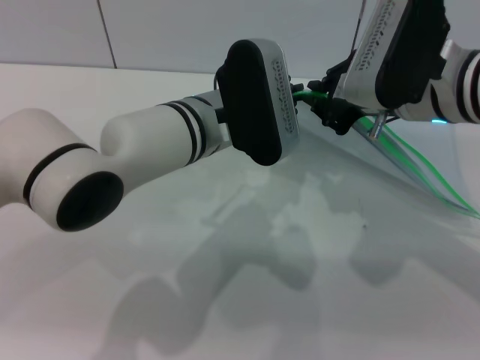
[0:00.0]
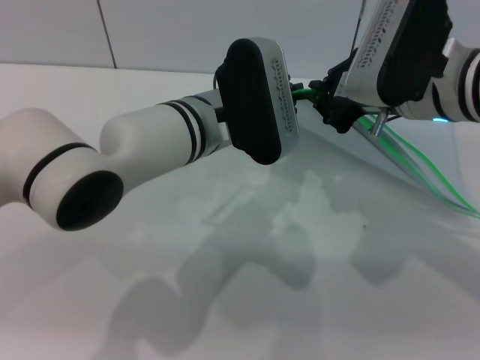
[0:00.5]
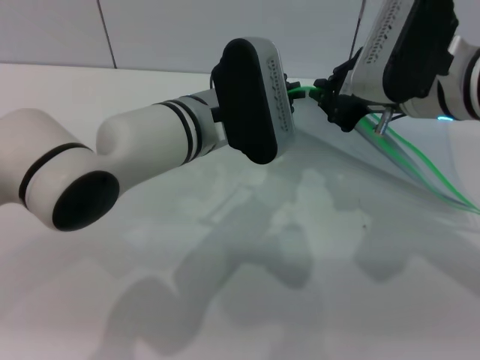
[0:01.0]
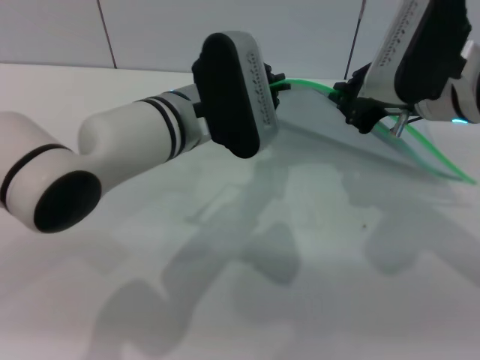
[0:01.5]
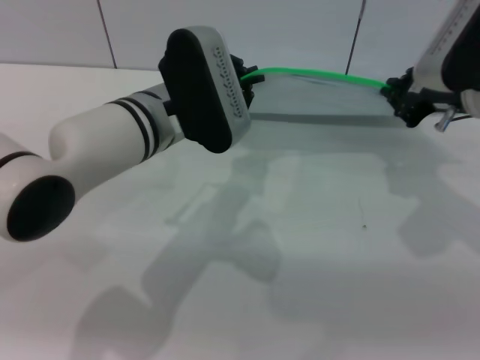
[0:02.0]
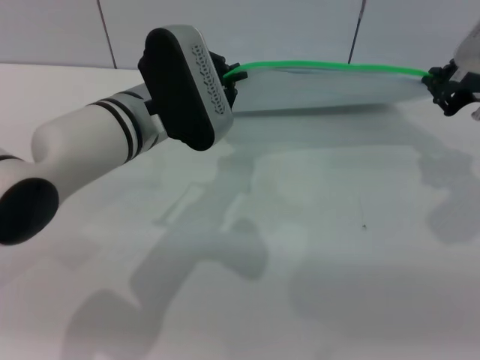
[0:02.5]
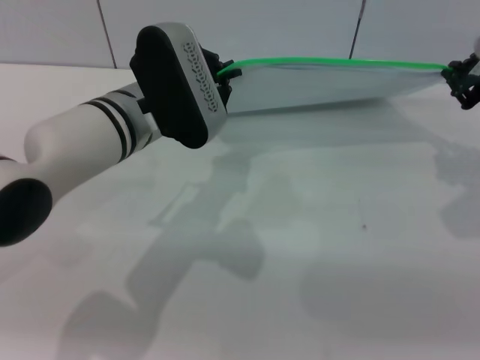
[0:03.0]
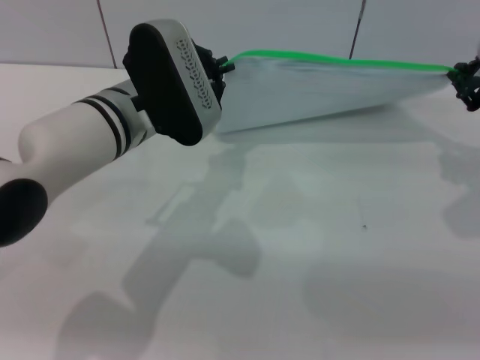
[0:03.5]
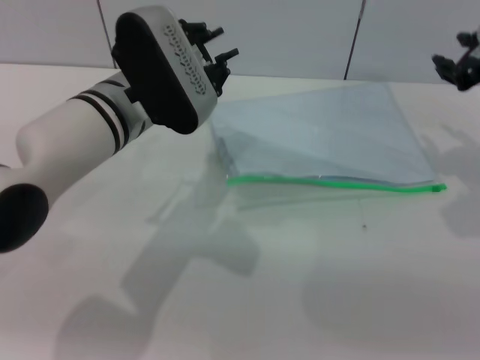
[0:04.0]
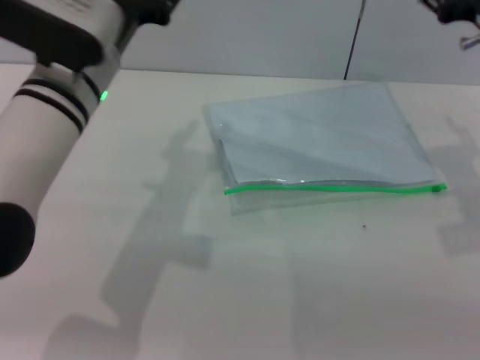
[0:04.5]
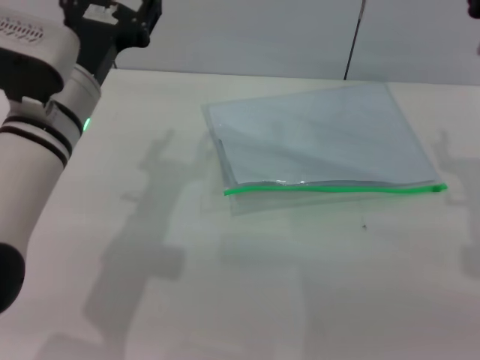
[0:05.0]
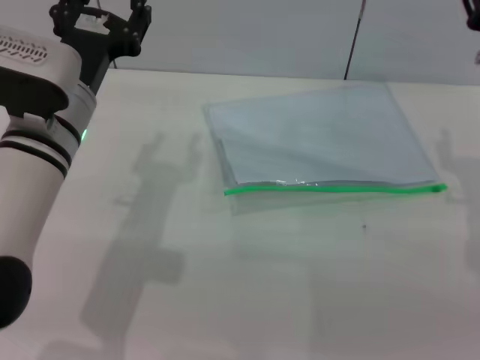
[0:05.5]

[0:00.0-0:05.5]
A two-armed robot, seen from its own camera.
Step, 0:00.0 to 0:04.0: Pulling up the zipper on the transparent plastic bag with the right gripper to close it.
0:00.0 to 0:02.0: The right gripper moves to the right, some 5 cm.
0:02.0 to 0:03.5: The right gripper goes approximately 5 cm to the right.
0:03.5 to 0:05.5: The left gripper shifts by approximately 5 cm, and opens up, while the right gripper ends up roughly 5 cm from where it was, and opens.
